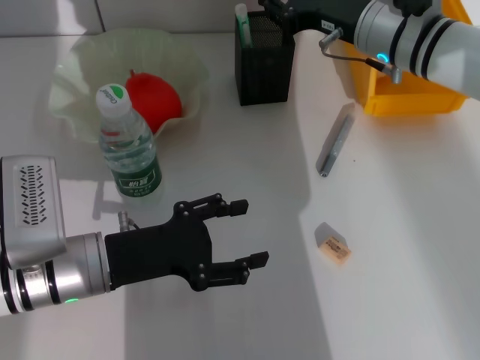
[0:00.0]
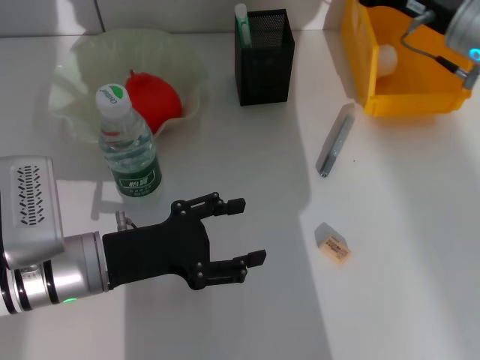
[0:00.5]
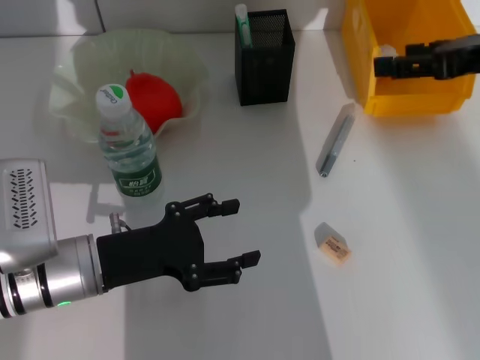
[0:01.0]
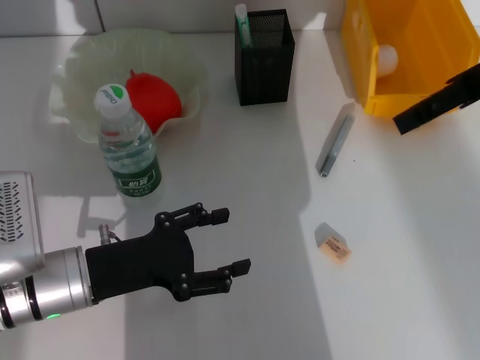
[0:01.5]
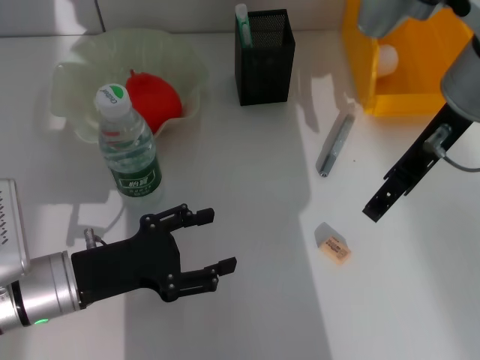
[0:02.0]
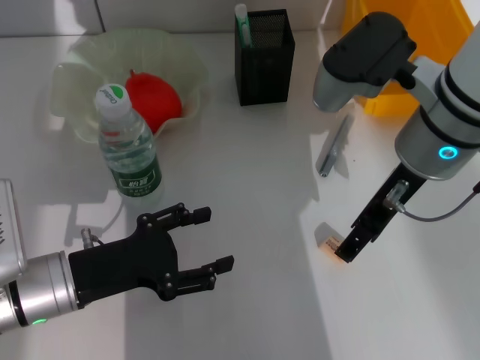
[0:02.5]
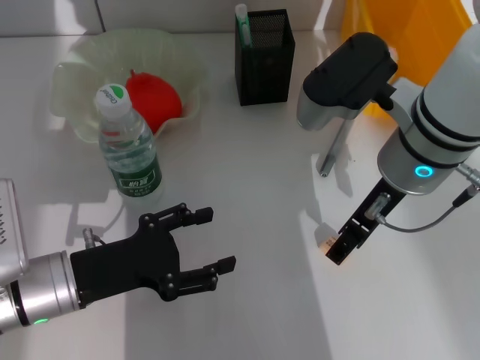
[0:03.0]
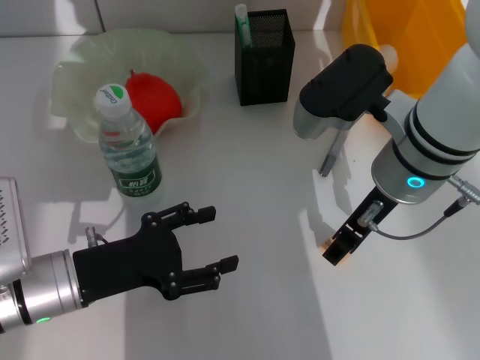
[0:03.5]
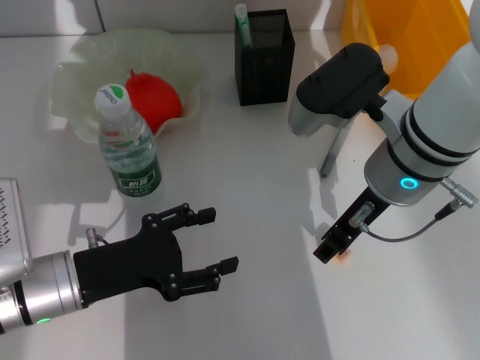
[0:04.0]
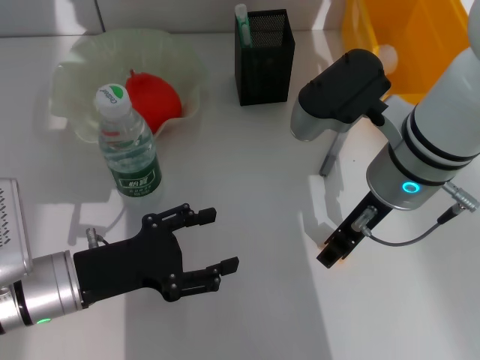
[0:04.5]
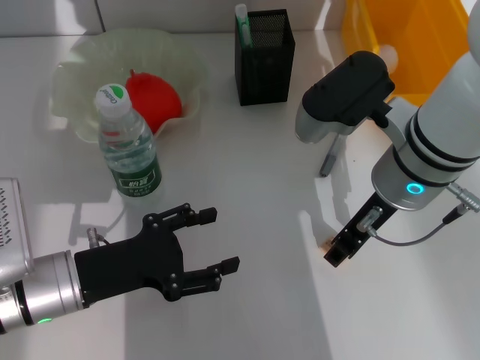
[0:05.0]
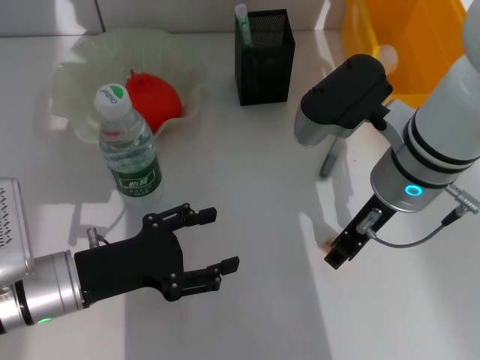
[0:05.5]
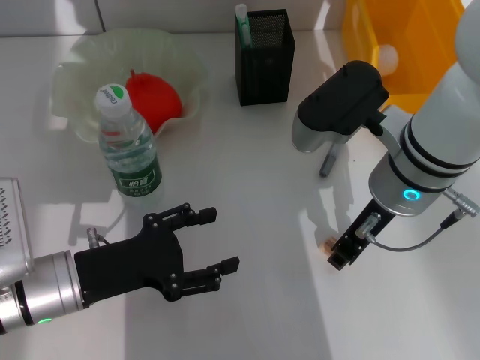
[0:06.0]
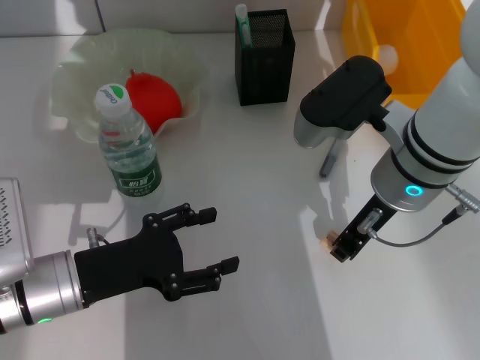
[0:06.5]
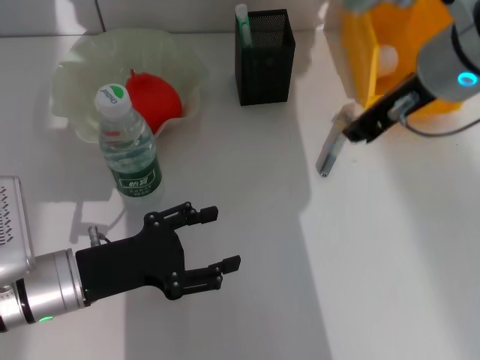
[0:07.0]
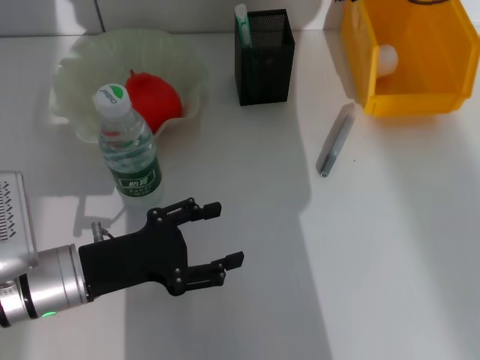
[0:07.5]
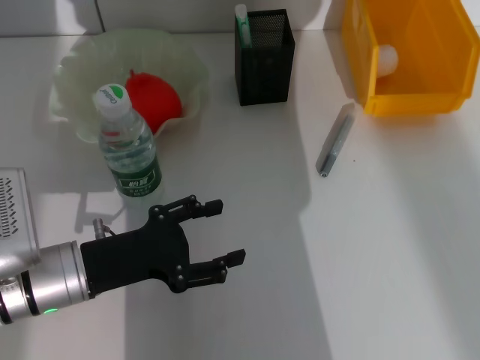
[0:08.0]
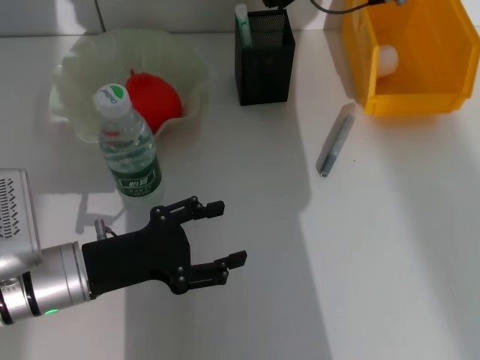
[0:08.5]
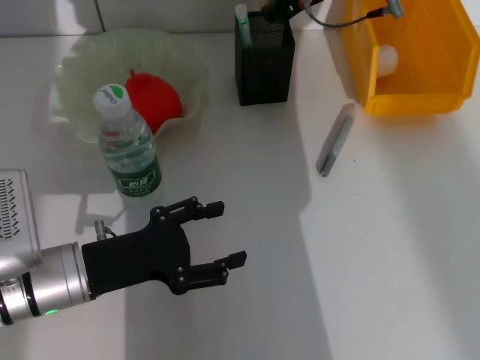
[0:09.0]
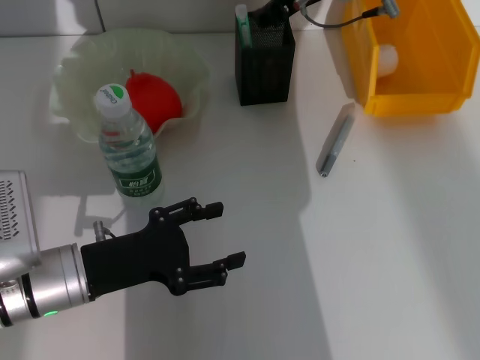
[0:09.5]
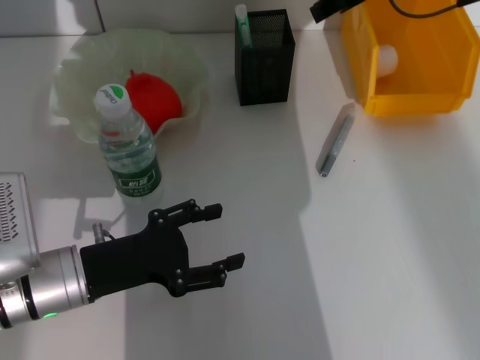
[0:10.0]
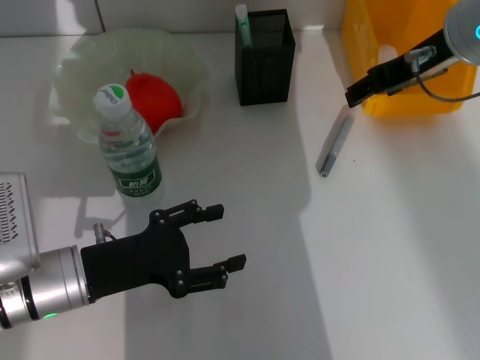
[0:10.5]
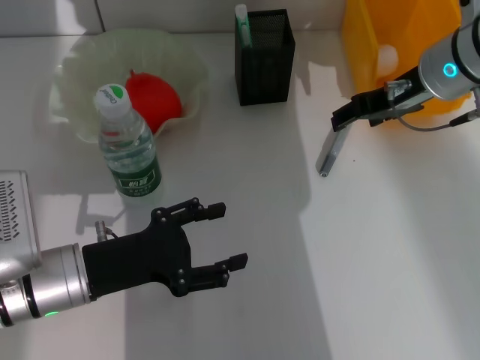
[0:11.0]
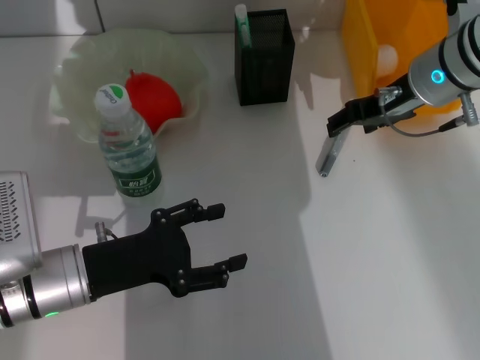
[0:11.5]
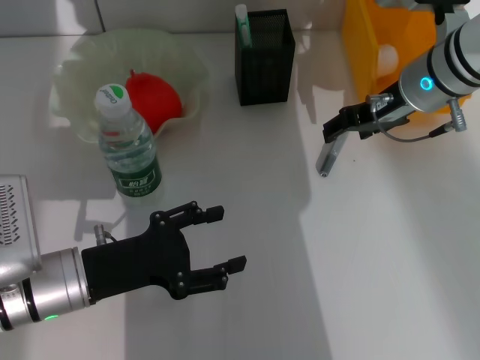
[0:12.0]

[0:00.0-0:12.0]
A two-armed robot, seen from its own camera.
Step, 0:01.0 to 0:05.5: Grab the eraser with the right hand.
Step, 0:06.0 to 0:09.5: Put the eraser into the pen holder with the right hand.
0:00.0 to 0:02.0: The right gripper heads upward and backward, covering some 15 cm, and opens its fingers.
0:02.0 to 0:04.0: The right gripper travels downward by approximately 5 cm.
0:04.0 to 0:06.0: Neither gripper changes place.
0:06.0 to 0:08.0: The right gripper is displaced forward and upward by approximately 20 cm.
0:08.0 to 0:10.0: The right gripper shifts some 5 cm backward.
0:10.0 to 0:12.0: The right gripper travels downward by some 15 cm.

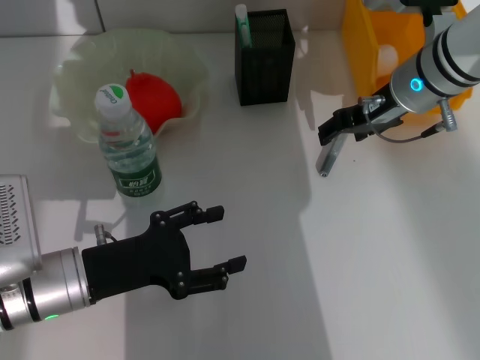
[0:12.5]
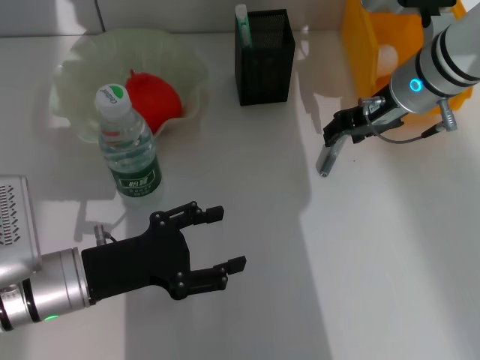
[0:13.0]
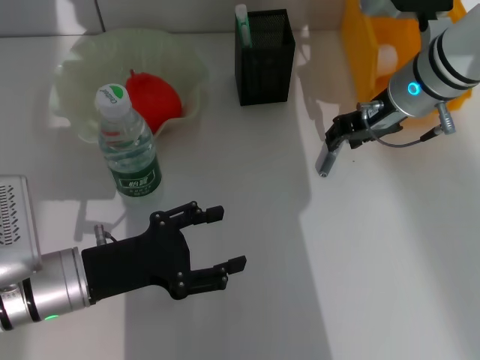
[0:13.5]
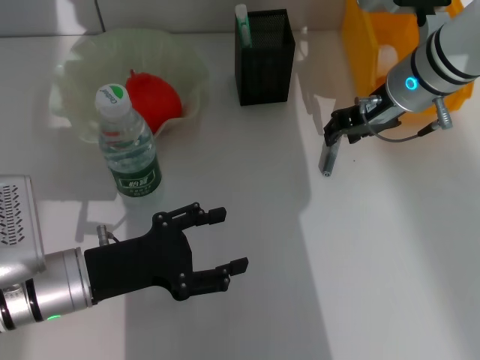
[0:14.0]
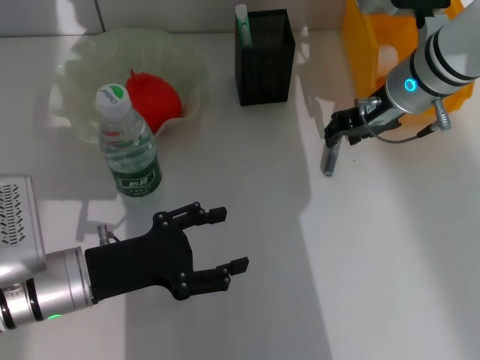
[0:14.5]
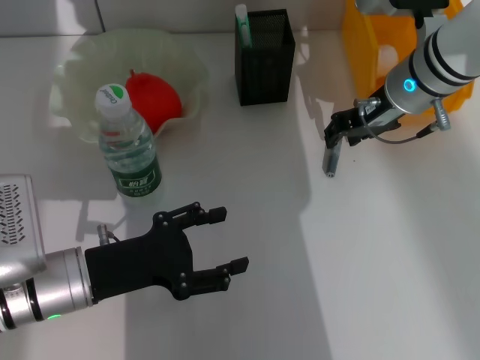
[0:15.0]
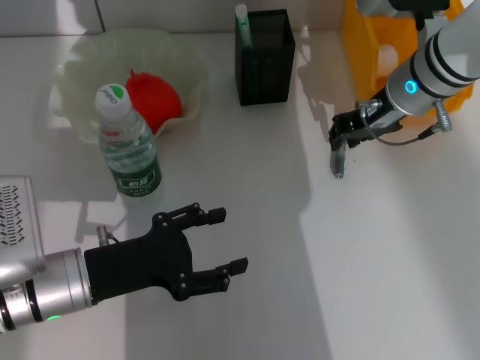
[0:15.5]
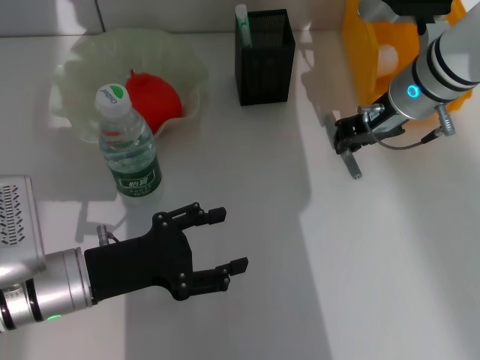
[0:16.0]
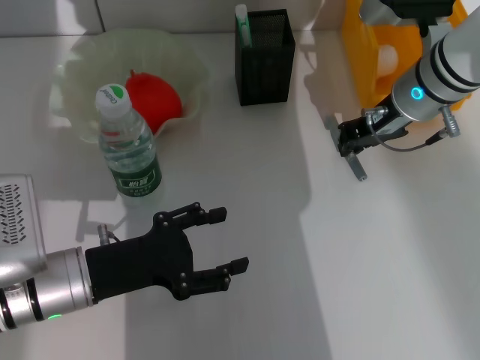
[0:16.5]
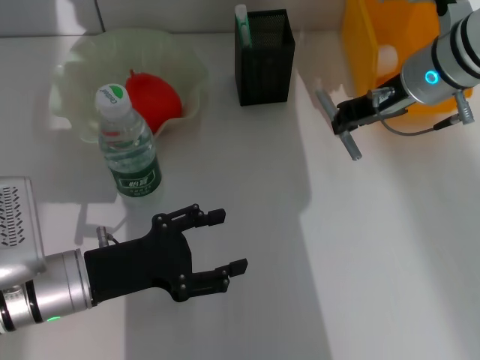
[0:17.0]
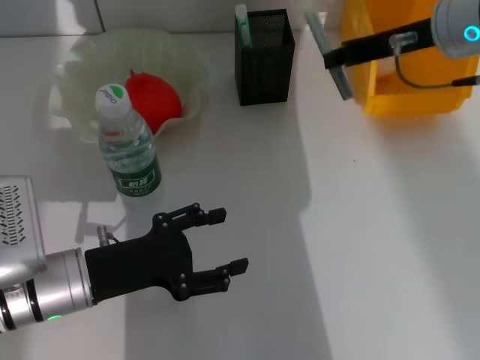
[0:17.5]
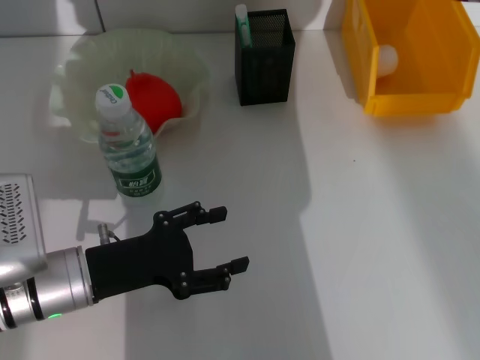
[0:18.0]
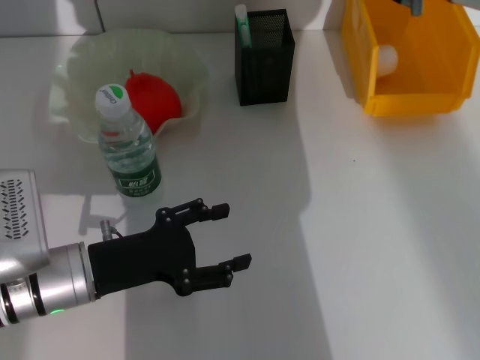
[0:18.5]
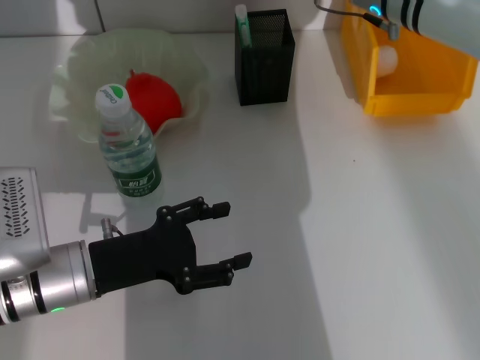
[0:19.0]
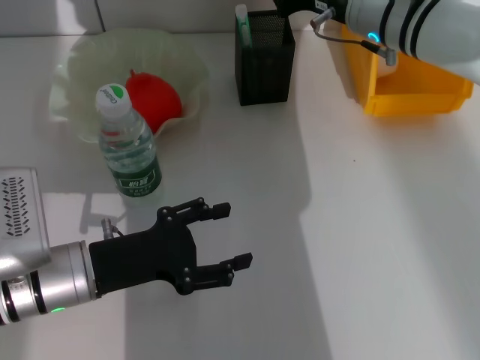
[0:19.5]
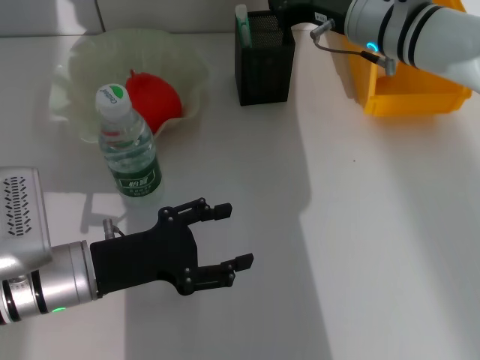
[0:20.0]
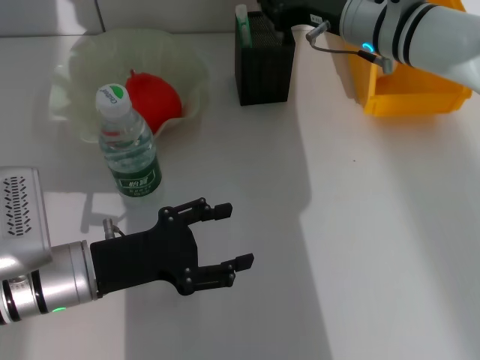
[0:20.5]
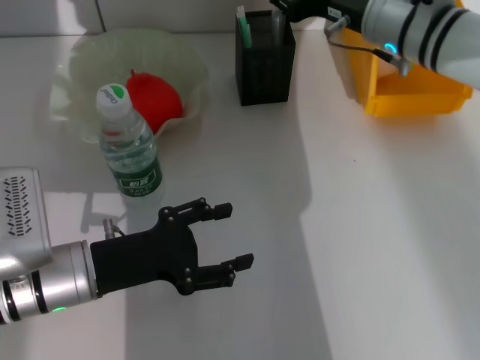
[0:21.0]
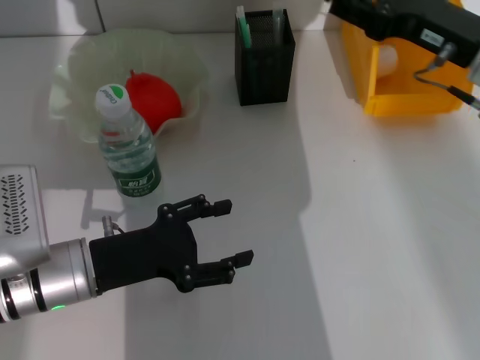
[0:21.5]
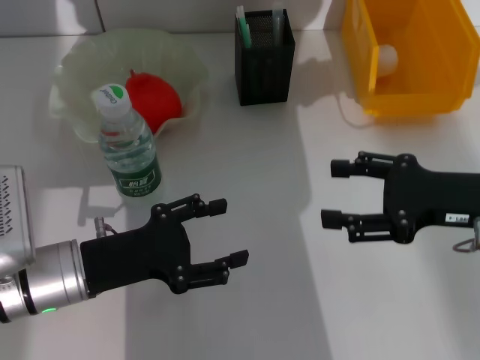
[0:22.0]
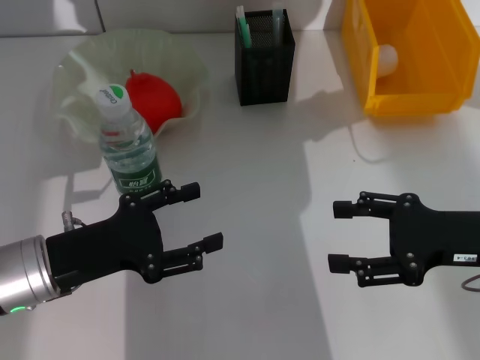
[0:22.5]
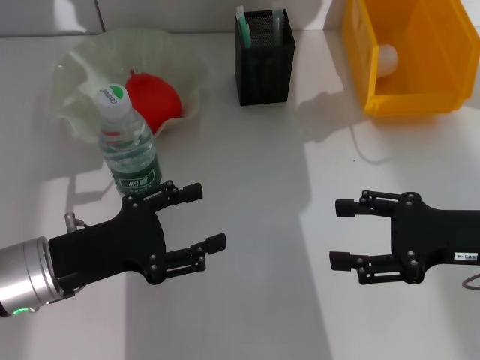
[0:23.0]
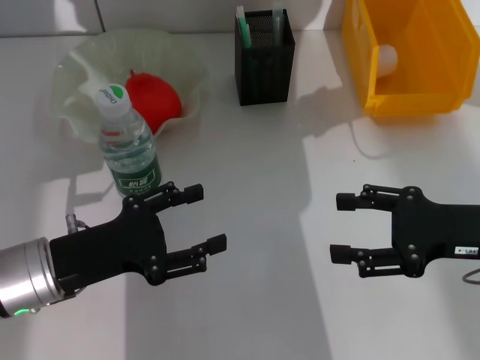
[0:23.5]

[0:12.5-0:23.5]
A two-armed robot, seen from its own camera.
Step, 0:12.5 to 0:15.5: Grab the gray glue with the right hand.
Step, 0:16.0 to 0:21.0: Place the gray glue into the pen holder with the right hand.
0:12.5 to 0:14.5: The right gripper closes its fingers.
0:14.5 to 0:16.0: Neither gripper changes place.
0:16.0 to 0:18.0: The right gripper shifts some 15 cm upward.
0:18.0 to 0:20.0: The right gripper heads downward, covering about 10 cm.
0:20.0 to 0:21.5: The right gripper shifts about 15 cm to the right and backward, and opens its fingers.
0:21.5 to 0:23.5: The right gripper is displaced backward and downward by some 10 cm, and opens.
